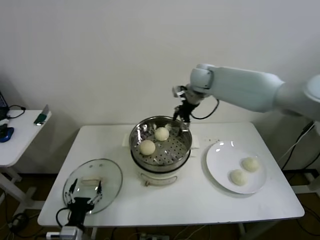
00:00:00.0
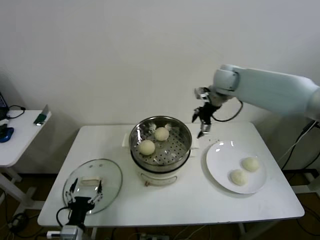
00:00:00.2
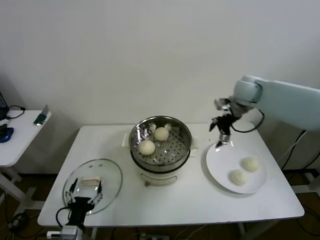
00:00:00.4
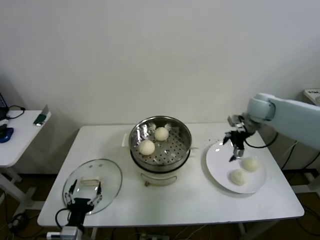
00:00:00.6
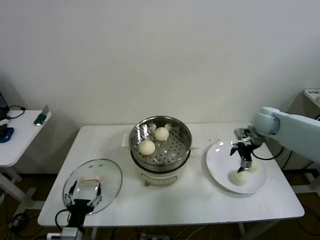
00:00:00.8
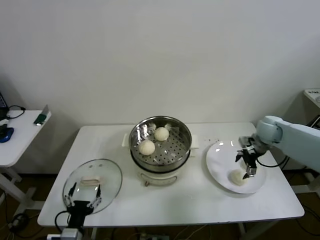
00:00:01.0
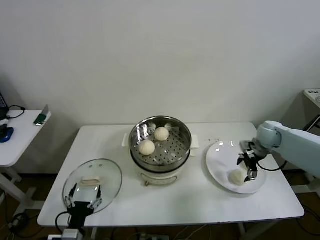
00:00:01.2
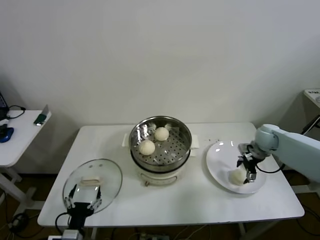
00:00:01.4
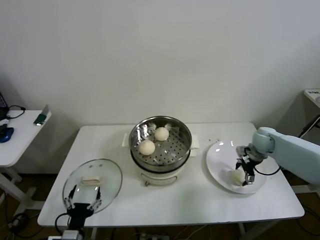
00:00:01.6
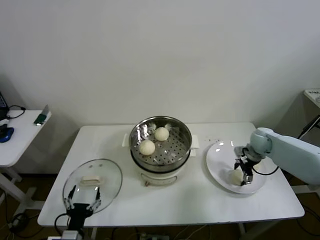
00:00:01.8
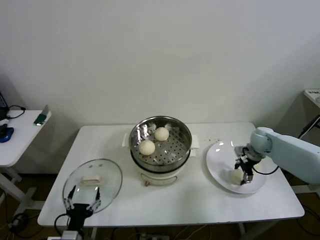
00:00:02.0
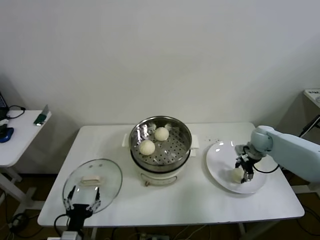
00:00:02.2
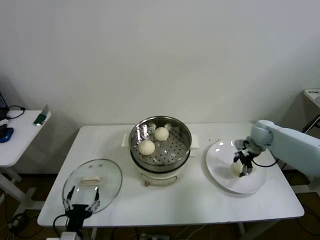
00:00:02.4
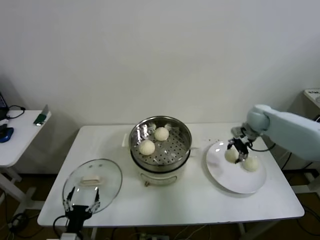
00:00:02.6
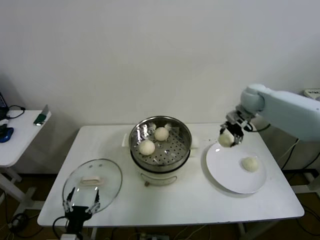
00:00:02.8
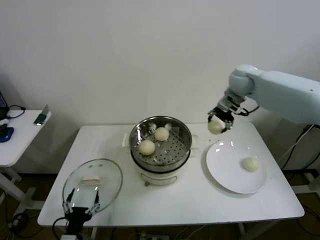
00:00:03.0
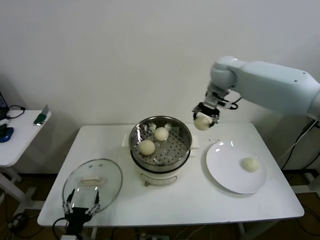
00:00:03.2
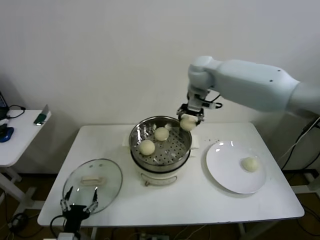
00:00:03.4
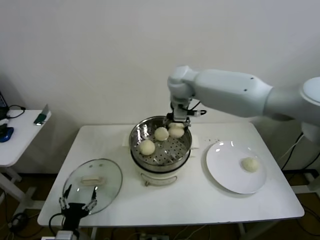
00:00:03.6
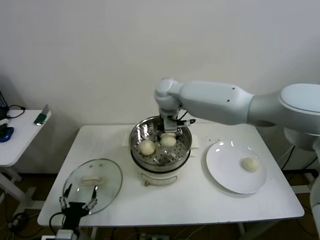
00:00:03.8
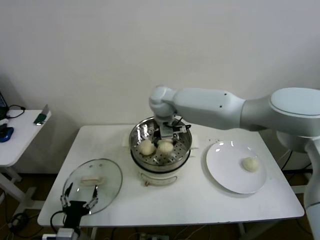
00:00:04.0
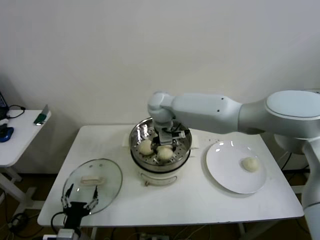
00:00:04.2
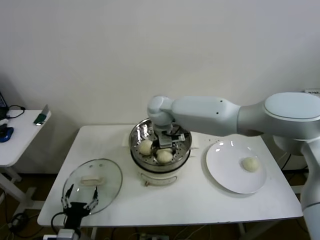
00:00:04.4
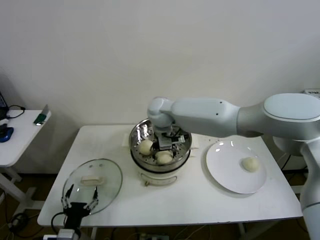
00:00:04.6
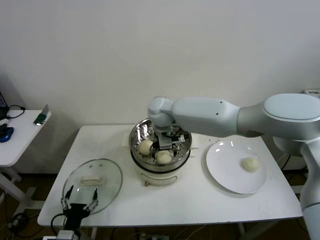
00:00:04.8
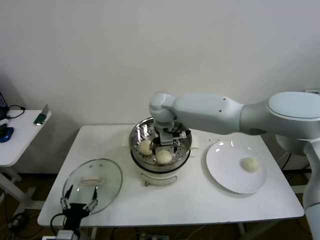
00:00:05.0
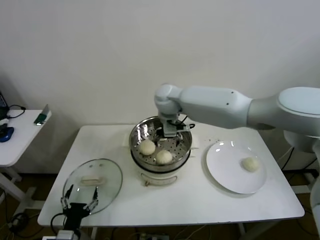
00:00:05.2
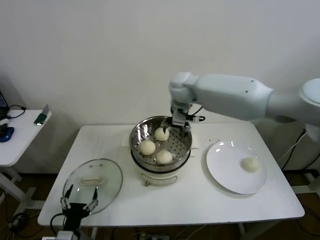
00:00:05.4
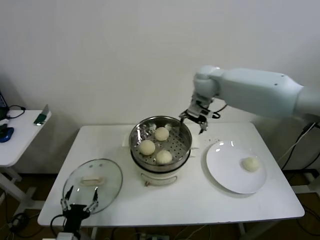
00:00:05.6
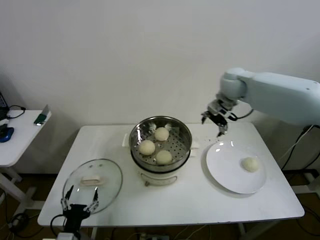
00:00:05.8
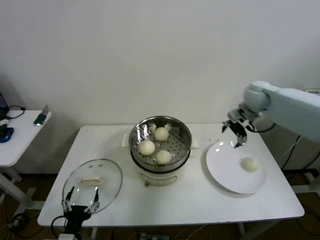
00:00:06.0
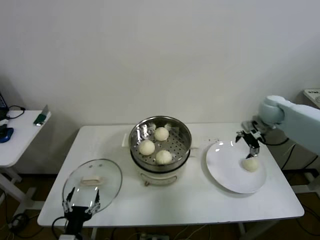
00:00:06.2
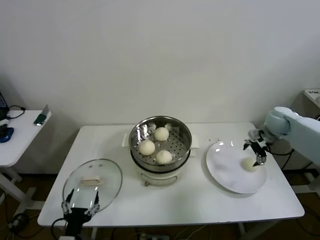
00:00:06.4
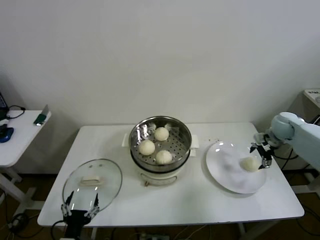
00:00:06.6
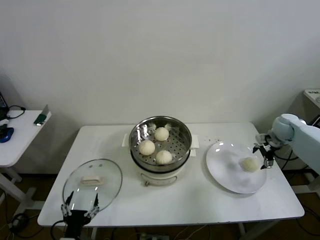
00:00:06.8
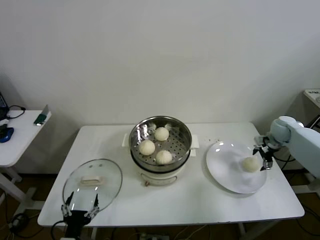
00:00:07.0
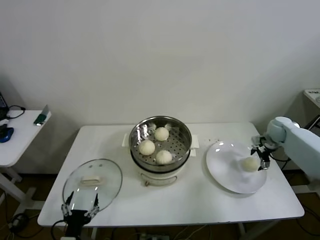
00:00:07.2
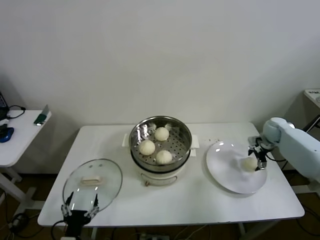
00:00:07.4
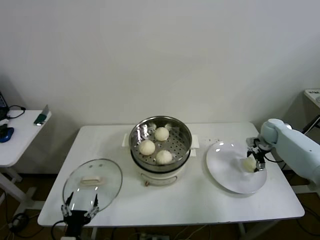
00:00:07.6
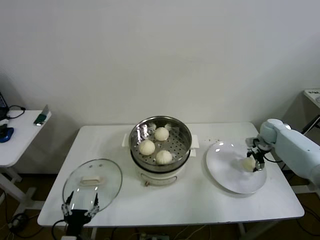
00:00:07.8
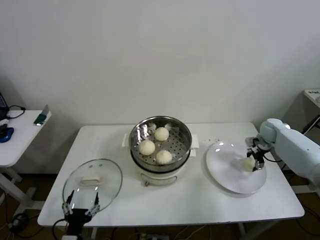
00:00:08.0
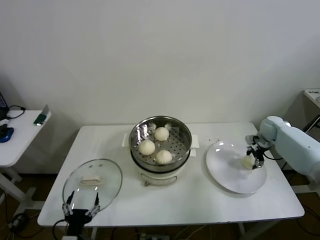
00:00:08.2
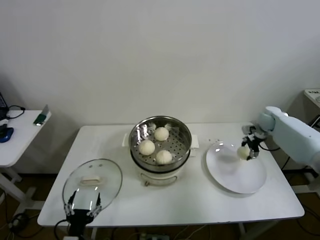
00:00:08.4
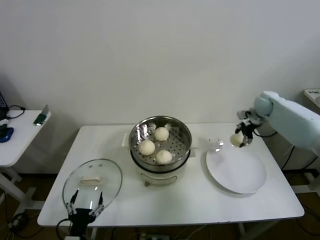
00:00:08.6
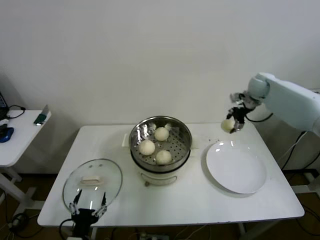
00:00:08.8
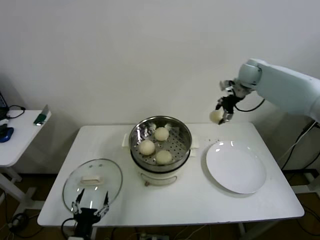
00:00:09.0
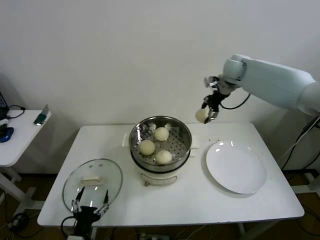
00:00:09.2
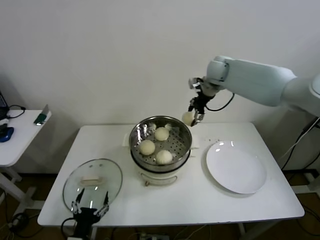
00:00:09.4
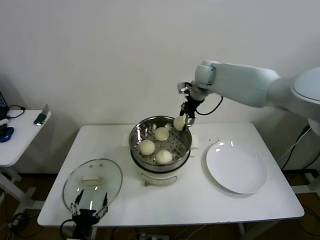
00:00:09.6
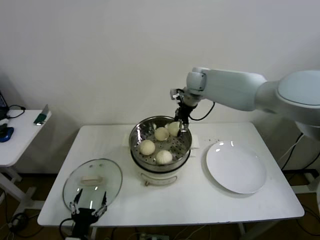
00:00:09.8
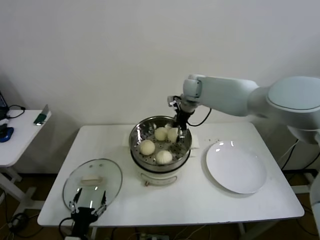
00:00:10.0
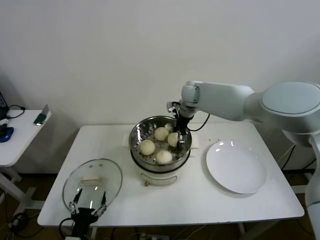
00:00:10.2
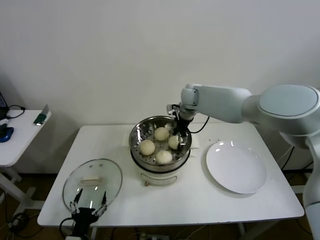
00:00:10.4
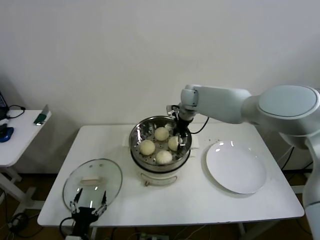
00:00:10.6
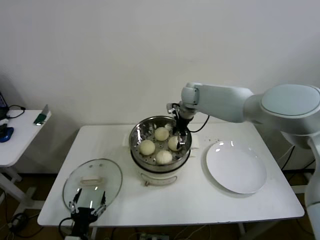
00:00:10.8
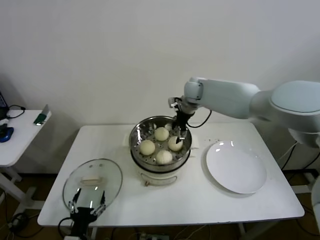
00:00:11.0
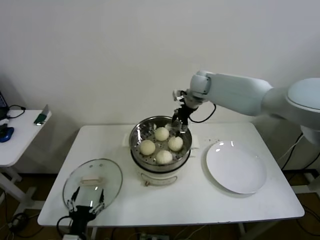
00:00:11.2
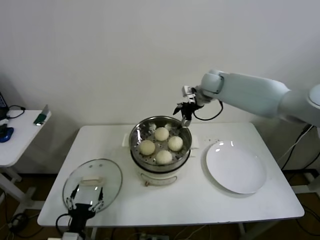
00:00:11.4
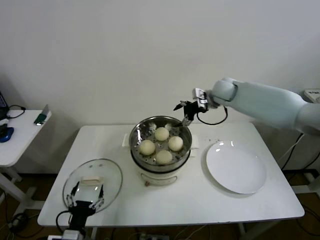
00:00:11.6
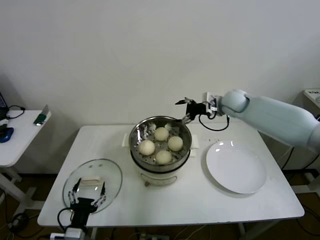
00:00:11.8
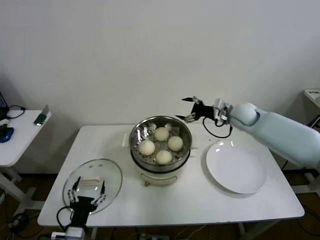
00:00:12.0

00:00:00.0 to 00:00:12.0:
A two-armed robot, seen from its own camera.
Step, 00:00:00.0 to 00:00:02.0: Grasp the baozi in the plate with right gripper.
Step, 00:00:02.2 to 00:00:05.0: Place the baozi on the steamer with right gripper.
Step, 00:00:05.2 to 00:00:07.8: Grasp the baozi in the plate with right gripper.
Step, 00:00:08.0 to 00:00:11.0: Place the baozi on the steamer with right gripper.
00:00:00.0 to 00:00:01.6: The right gripper heads downward, to the right and backward, covering roughly 35 cm.
00:00:01.6 to 00:00:03.0: The right gripper moves upward and to the left, roughly 30 cm, and closes its fingers.
00:00:03.0 to 00:00:04.4: The right gripper goes roughly 25 cm to the left.
00:00:04.4 to 00:00:06.0: The right gripper is displaced to the right by approximately 35 cm, and opens.
00:00:06.0 to 00:00:07.6: The right gripper is displaced downward and to the right by roughly 20 cm.
00:00:07.6 to 00:00:09.0: The right gripper shifts roughly 25 cm upward and to the left, and closes its fingers.
00:00:09.0 to 00:00:10.4: The right gripper is displaced to the left and downward by about 20 cm, and opens its fingers.
00:00:10.4 to 00:00:12.0: The right gripper moves to the right and backward, roughly 20 cm.

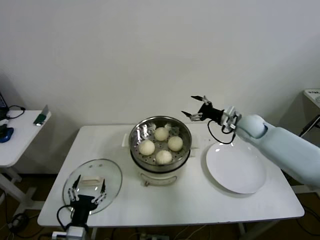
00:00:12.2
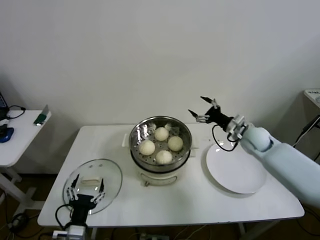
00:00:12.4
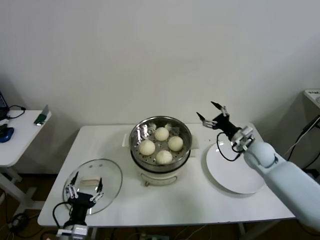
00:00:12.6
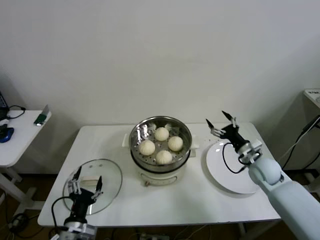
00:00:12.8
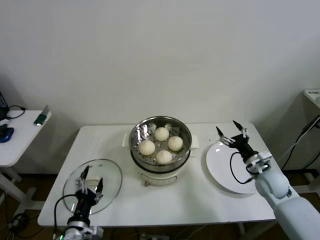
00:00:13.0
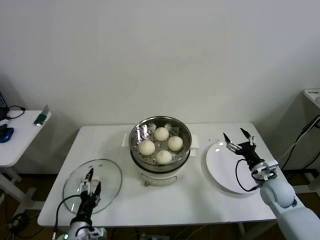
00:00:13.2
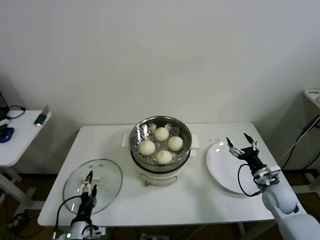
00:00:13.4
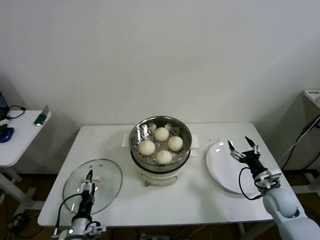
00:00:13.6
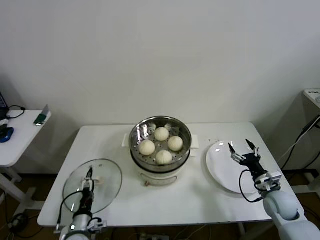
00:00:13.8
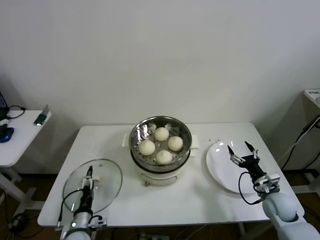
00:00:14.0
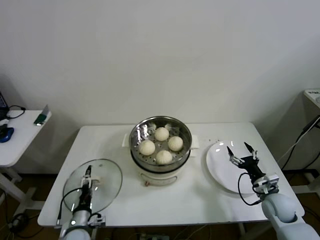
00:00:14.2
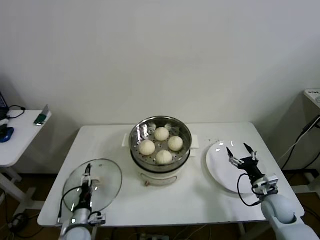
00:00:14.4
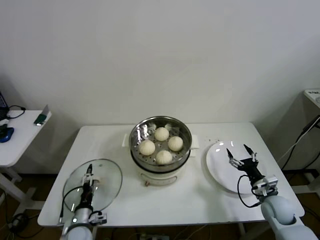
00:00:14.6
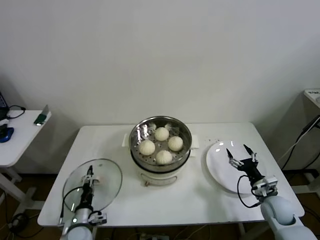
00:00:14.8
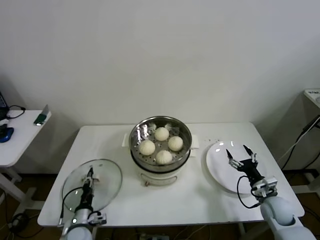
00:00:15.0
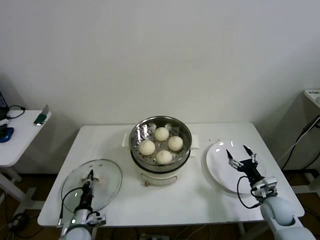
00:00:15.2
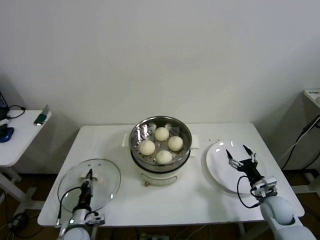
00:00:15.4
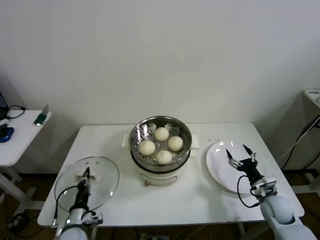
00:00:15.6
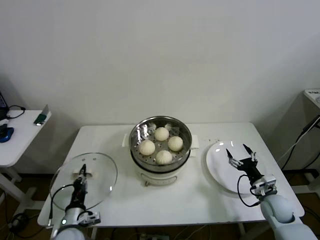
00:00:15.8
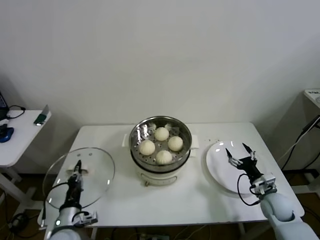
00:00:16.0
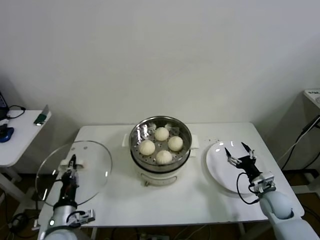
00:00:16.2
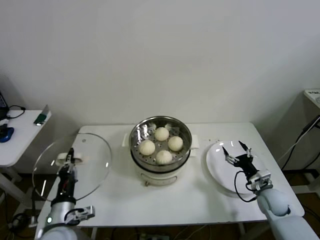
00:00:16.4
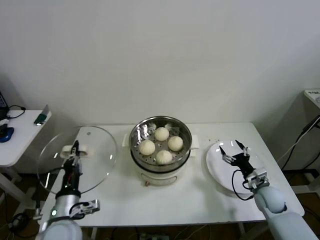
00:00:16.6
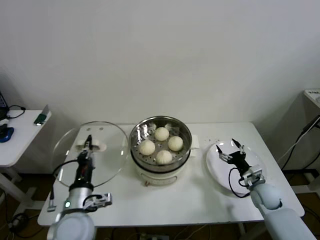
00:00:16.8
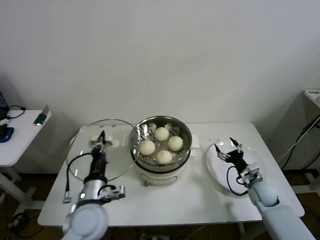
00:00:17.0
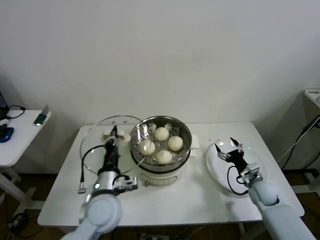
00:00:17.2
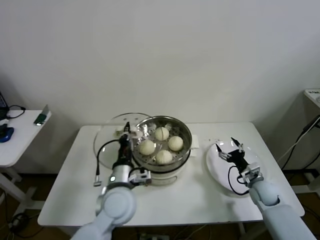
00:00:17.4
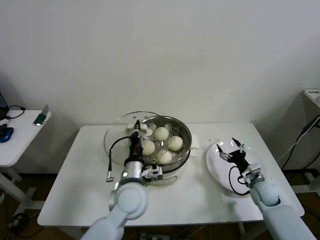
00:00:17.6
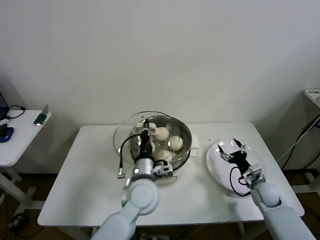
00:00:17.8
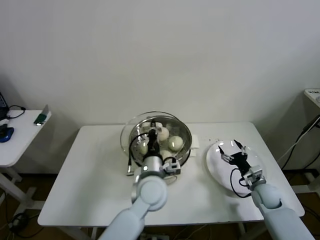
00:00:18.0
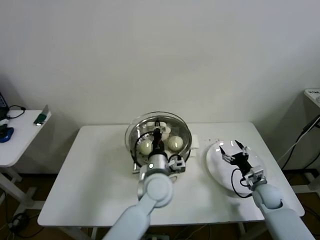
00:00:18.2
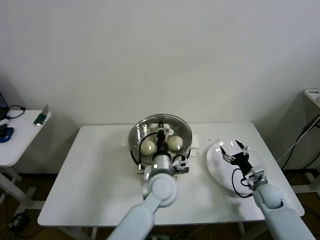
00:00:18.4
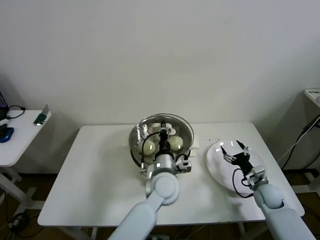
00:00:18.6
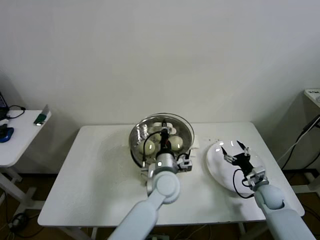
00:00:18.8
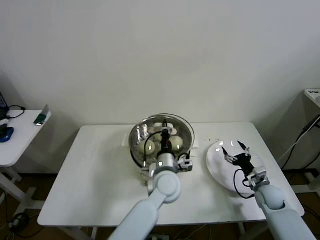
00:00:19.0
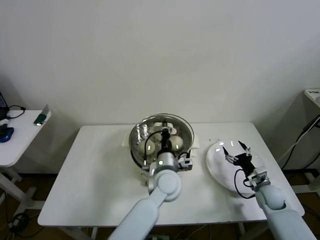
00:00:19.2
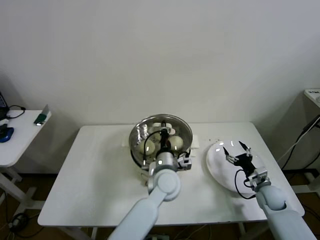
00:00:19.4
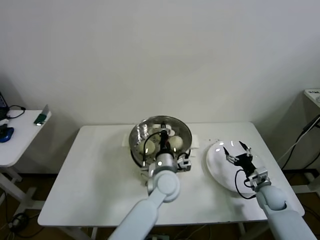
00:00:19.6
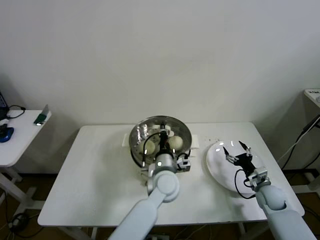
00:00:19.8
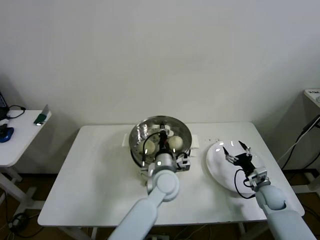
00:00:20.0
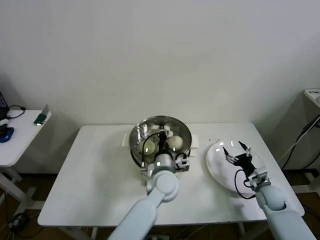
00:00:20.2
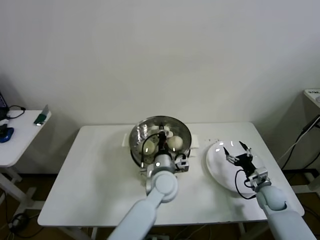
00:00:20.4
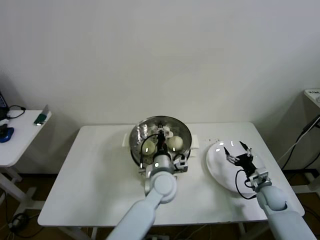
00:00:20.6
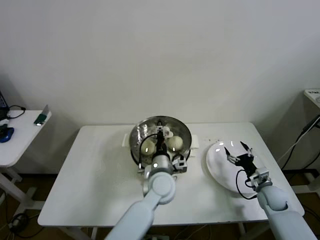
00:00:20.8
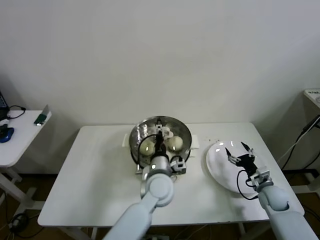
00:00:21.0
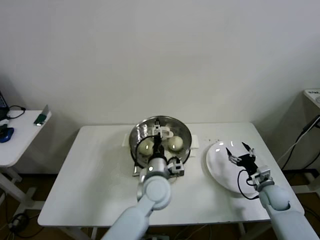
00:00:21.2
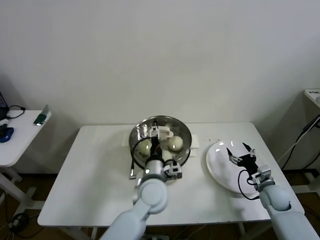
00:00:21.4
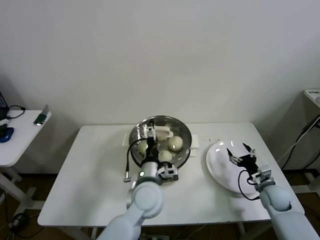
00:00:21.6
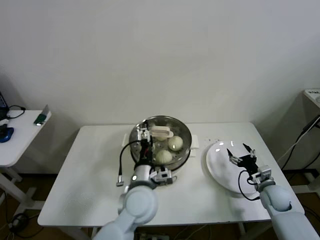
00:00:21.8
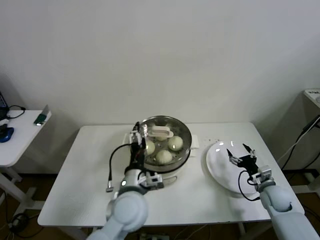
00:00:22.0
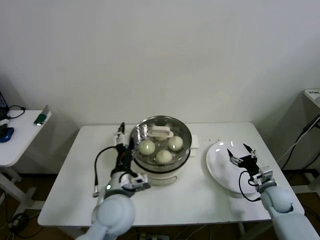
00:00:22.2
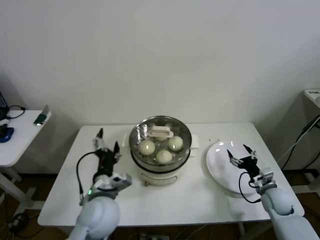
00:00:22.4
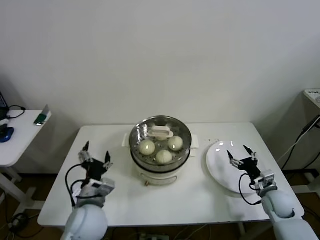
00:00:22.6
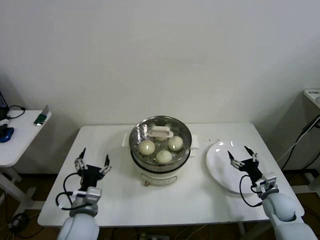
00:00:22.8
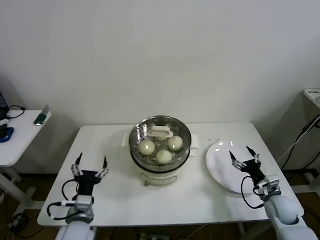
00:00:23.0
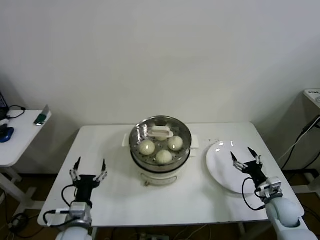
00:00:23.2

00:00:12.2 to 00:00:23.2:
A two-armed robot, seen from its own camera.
Step, 00:00:12.2 to 00:00:15.2: Grasp the pot lid with left gripper.
Step, 00:00:15.4 to 00:00:21.8: Place the pot lid on the steamer with left gripper.
00:00:12.2 to 00:00:13.8: The left gripper heads downward and forward, covering some 10 cm, while the right gripper shifts about 25 cm backward and downward.
00:00:13.8 to 00:00:15.4: The left gripper closes up.
00:00:15.4 to 00:00:17.0: The right gripper moves forward, approximately 5 cm. Meanwhile the left gripper shifts approximately 20 cm upward and to the right.
00:00:17.0 to 00:00:18.4: The left gripper shifts approximately 20 cm to the right and forward.
00:00:18.4 to 00:00:20.0: The grippers move only a little.
00:00:20.0 to 00:00:21.6: The left gripper moves approximately 5 cm, and opens its fingers.
00:00:21.6 to 00:00:23.2: The left gripper moves to the left and backward, about 25 cm.
